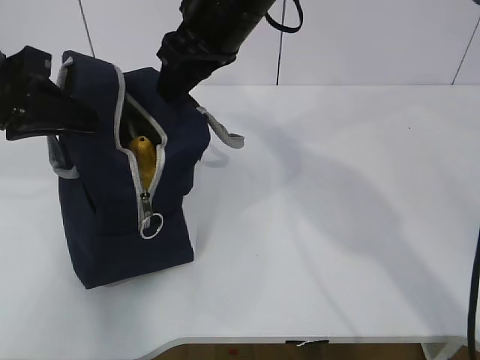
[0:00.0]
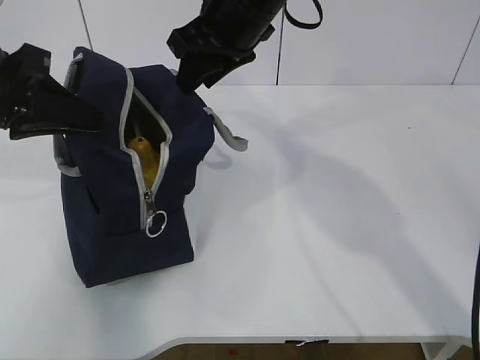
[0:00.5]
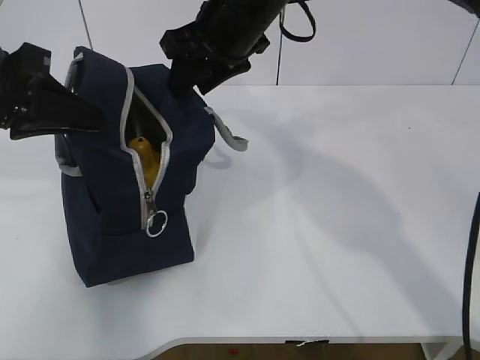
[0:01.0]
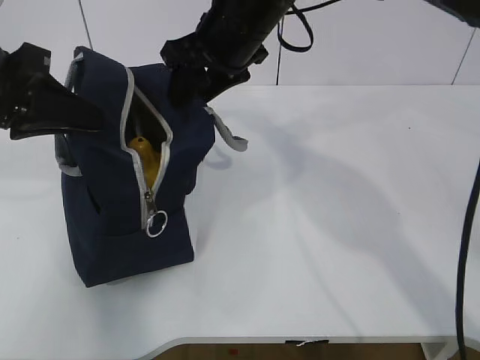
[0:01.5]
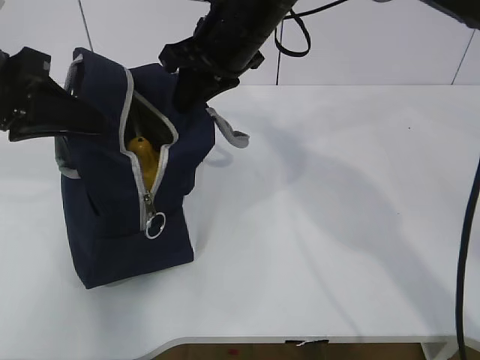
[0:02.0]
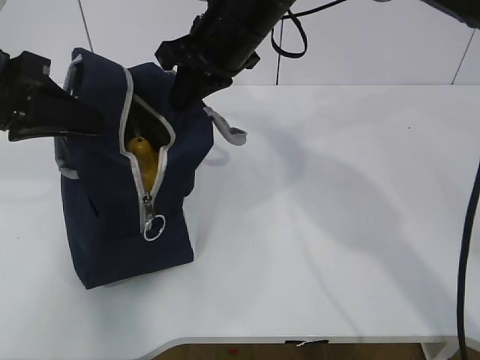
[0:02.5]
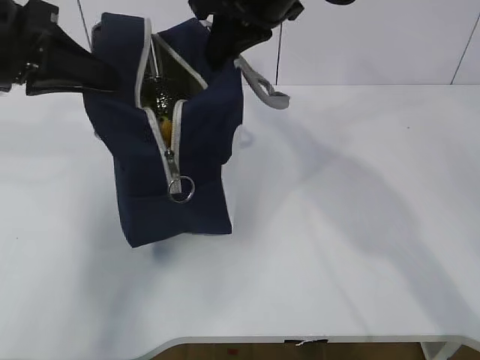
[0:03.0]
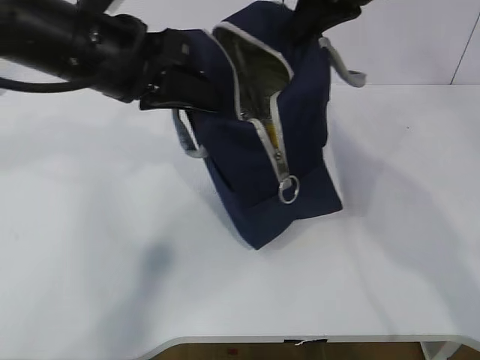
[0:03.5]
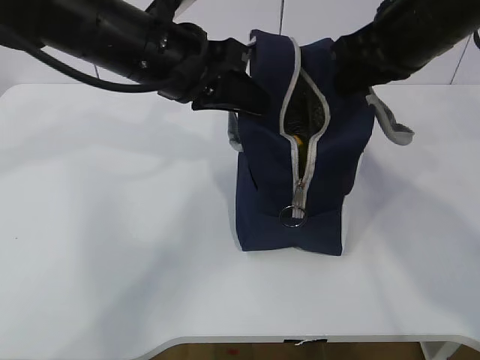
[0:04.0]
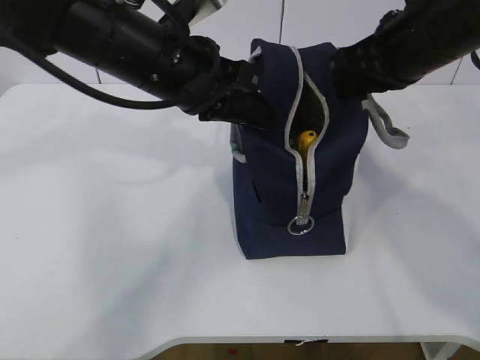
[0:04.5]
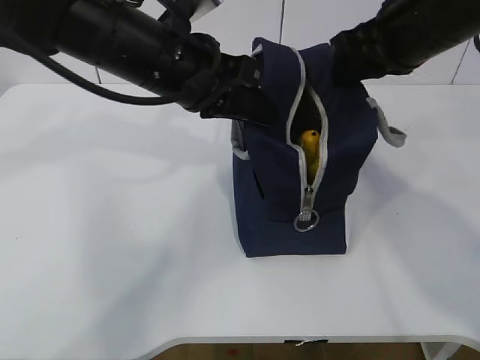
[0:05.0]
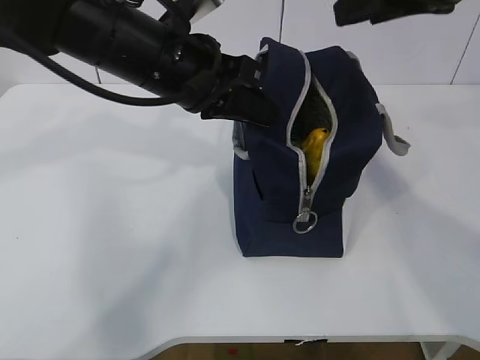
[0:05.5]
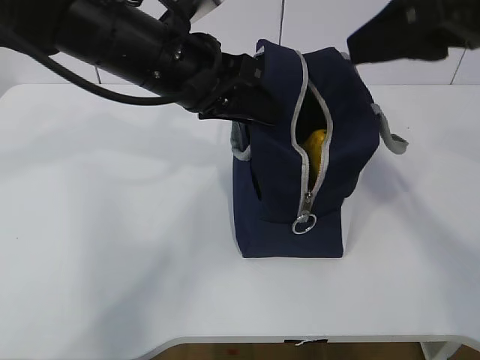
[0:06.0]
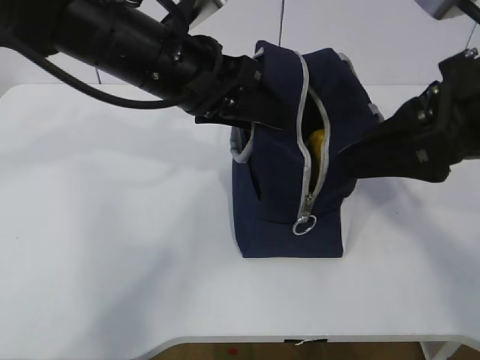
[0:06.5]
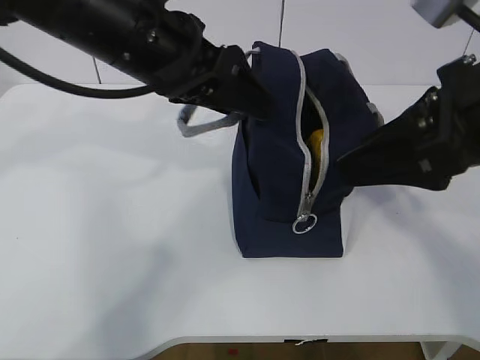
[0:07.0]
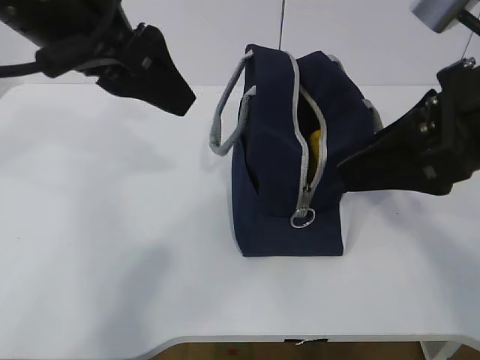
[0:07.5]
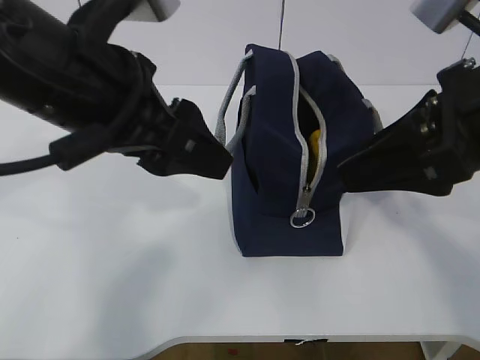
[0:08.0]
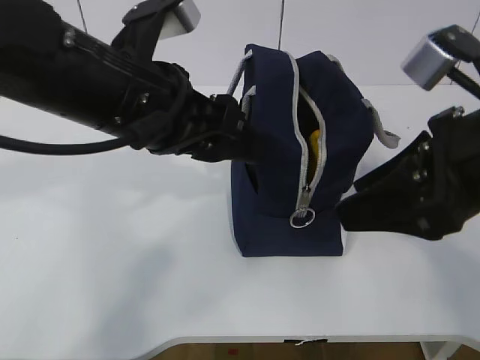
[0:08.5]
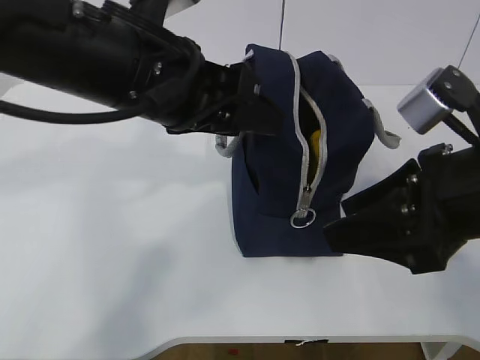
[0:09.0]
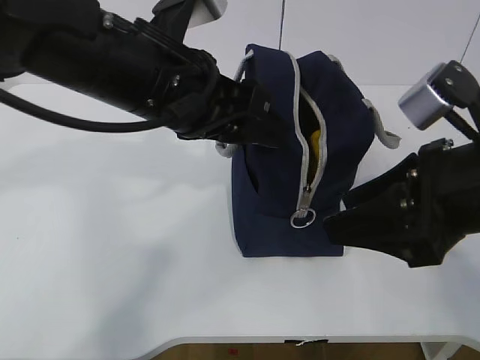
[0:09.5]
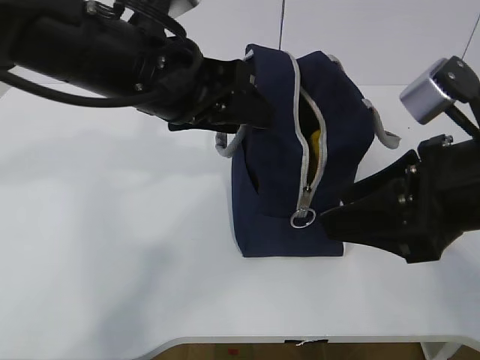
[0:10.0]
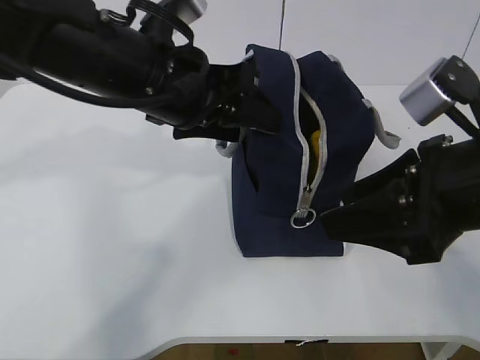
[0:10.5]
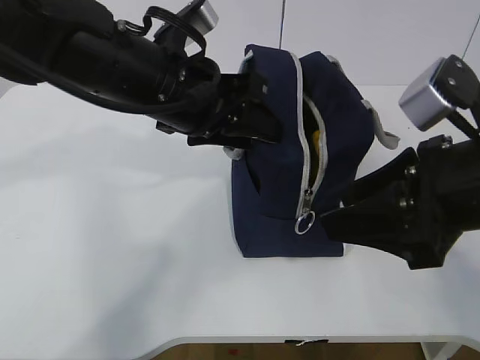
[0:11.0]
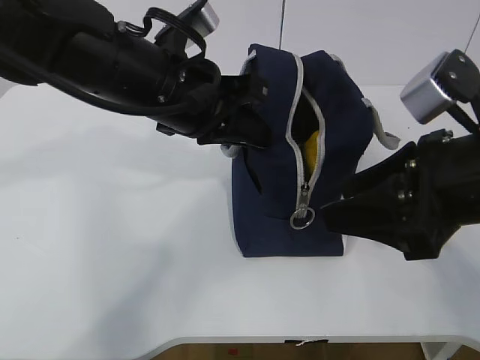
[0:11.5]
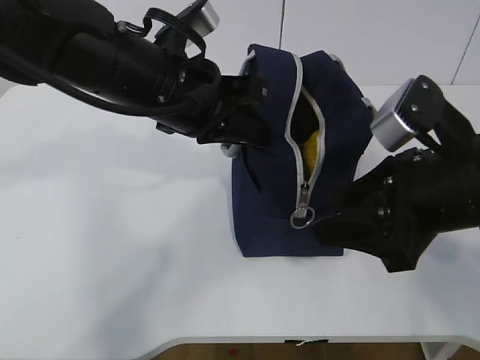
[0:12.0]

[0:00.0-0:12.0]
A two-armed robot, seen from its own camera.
0:02.0 to 0:04.0: The right gripper heads to the right and backward, covering roughly 15 cm, while the left gripper goes some 15 cm to the right.
0:04.0 to 0:06.0: The right gripper is displaced backward and upward by roughly 10 cm, and opens its fingers.
0:06.0 to 0:08.0: The left gripper is displaced backward by approximately 10 cm, and opens up. The right gripper travels downward by approximately 5 cm.
0:08.0 to 0:10.0: The left gripper is displaced forward by roughly 5 cm, while the right gripper shifts about 5 cm downward.
0:10.0 to 0:12.0: The left gripper closes up.

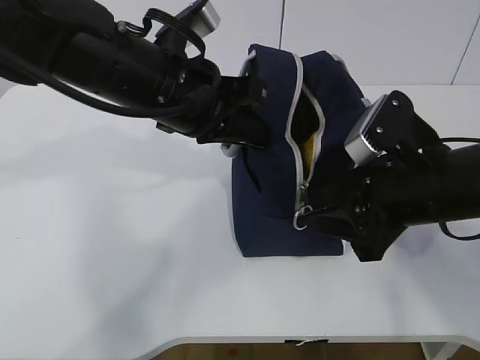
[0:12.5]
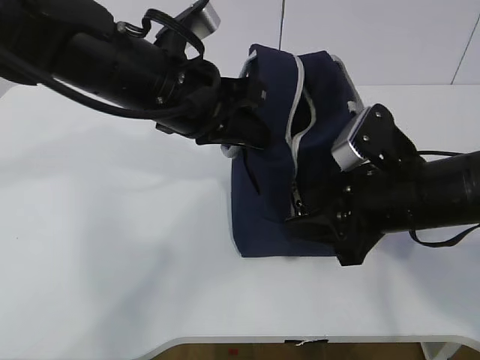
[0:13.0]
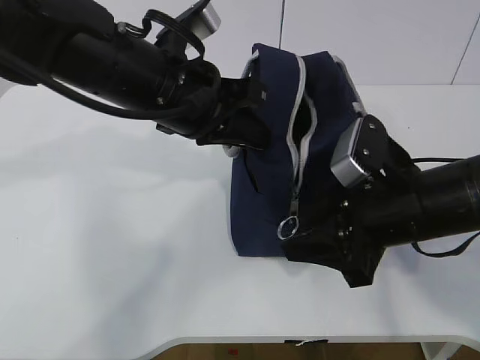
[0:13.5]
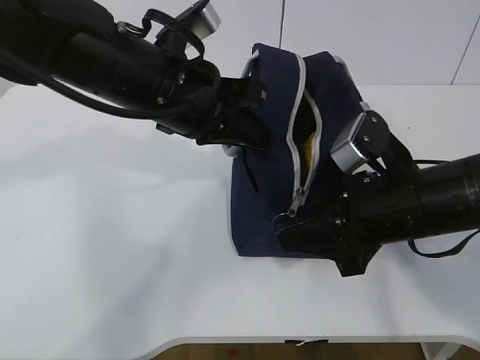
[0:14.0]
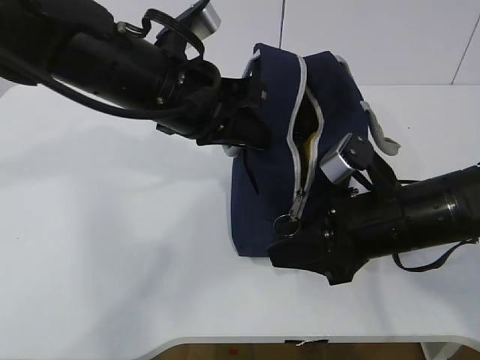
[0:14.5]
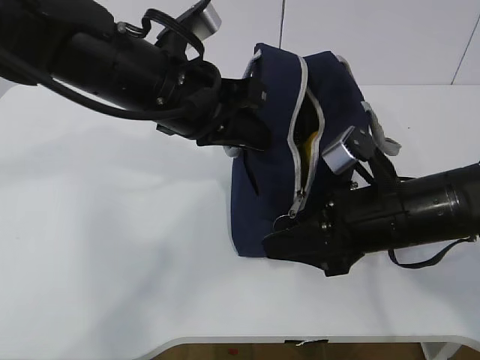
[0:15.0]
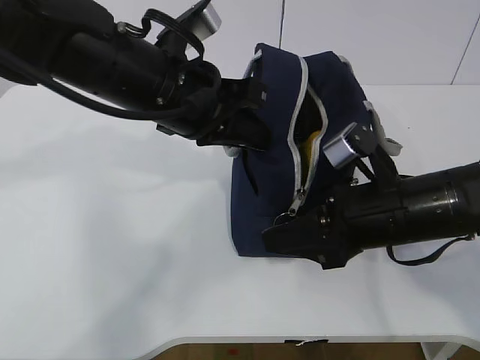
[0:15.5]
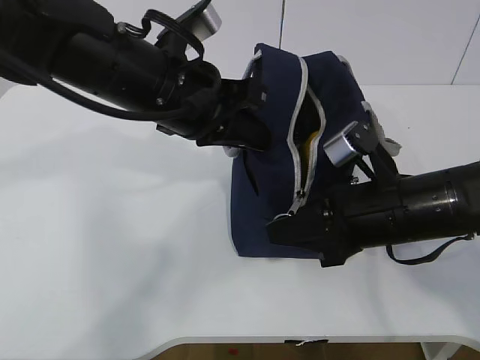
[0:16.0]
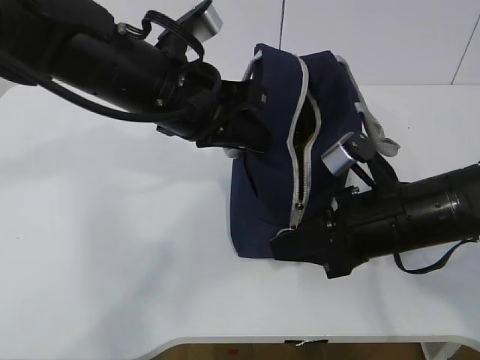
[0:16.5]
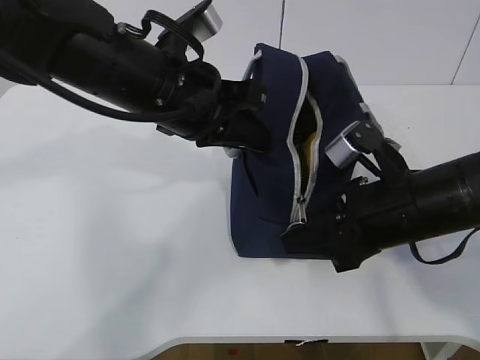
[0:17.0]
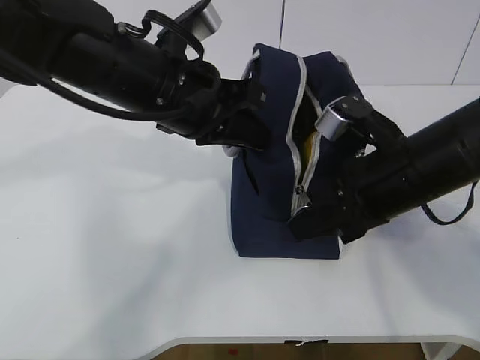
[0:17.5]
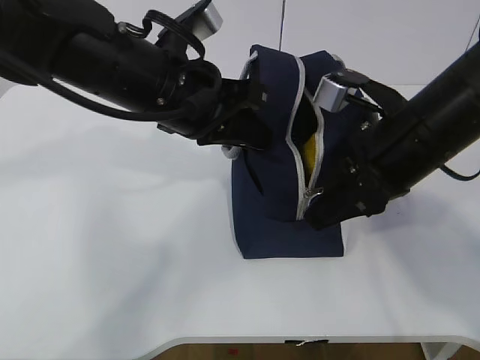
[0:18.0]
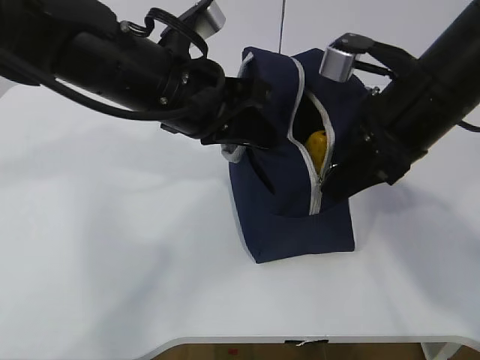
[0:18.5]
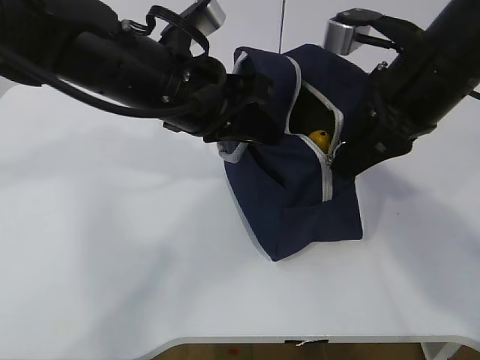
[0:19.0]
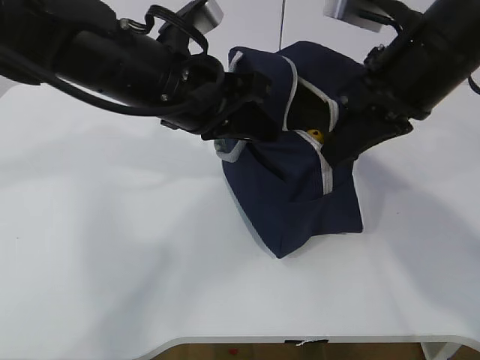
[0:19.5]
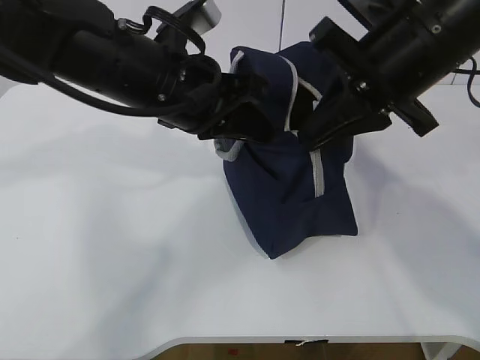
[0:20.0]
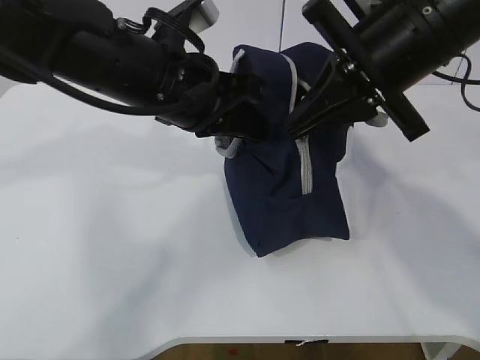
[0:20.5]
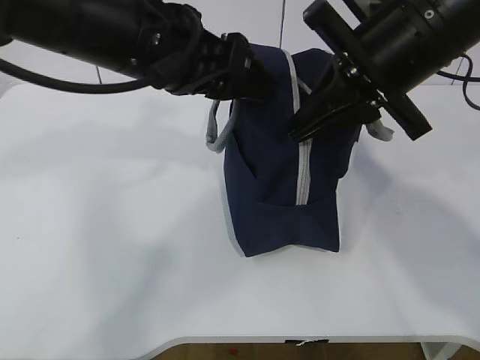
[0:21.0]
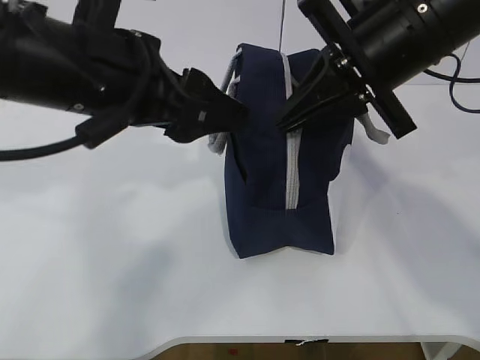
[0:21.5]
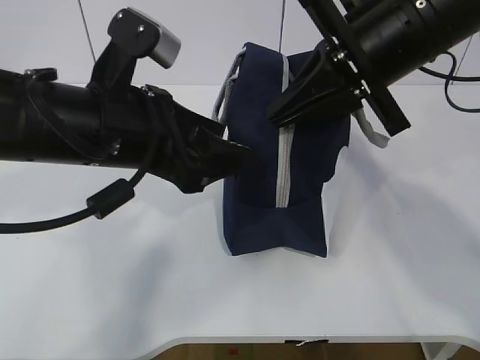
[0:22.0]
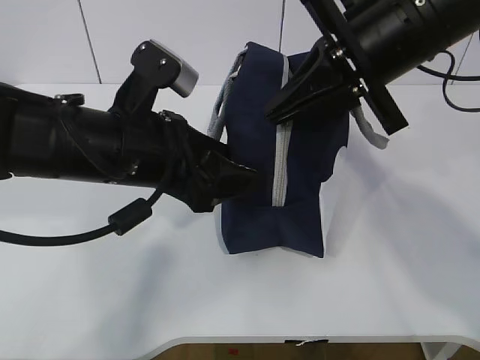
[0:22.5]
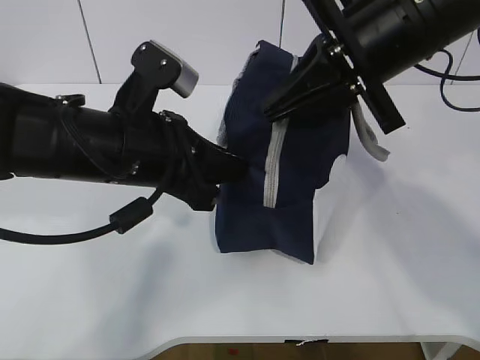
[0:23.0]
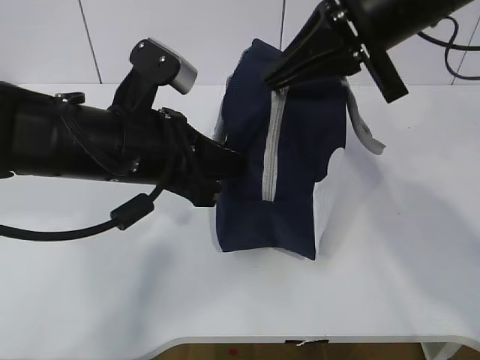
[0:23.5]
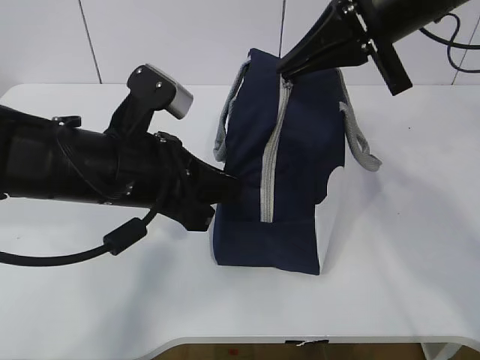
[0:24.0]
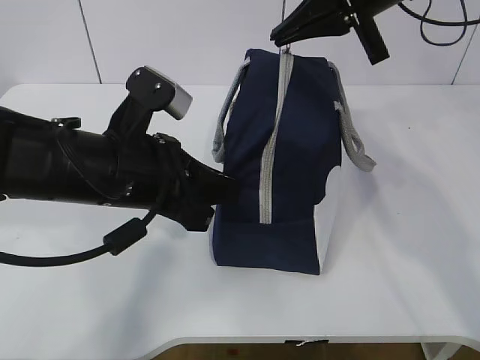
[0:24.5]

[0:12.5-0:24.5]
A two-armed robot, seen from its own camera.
0:12.5 to 0:14.5: The right gripper ends up some 5 cm from where it was.
0:14.5 to 0:16.5: The right gripper closes its fingers.
0:16.5 to 0:18.5: The right gripper goes about 10 cm upward.
0:18.5 to 0:20.5: The right gripper shifts by approximately 5 cm.
0:20.5 to 0:22.5: The left gripper moves roughly 5 cm, and opens.
0:22.5 to 0:24.5: The right gripper goes roughly 10 cm forward; the left gripper closes.

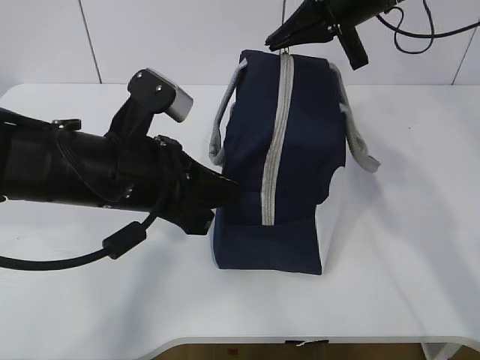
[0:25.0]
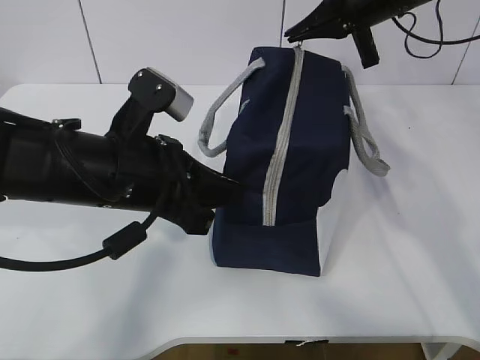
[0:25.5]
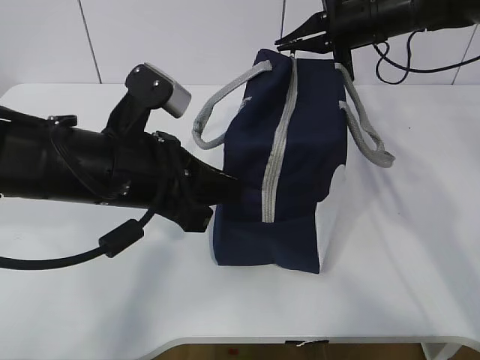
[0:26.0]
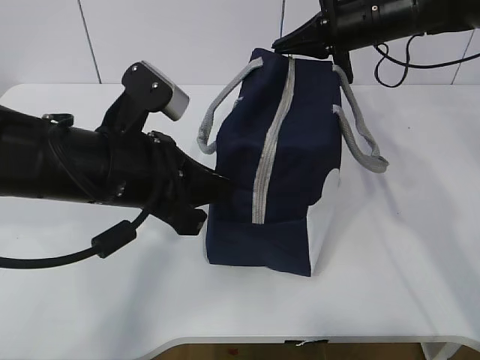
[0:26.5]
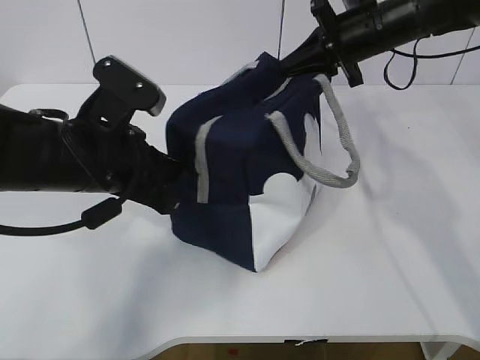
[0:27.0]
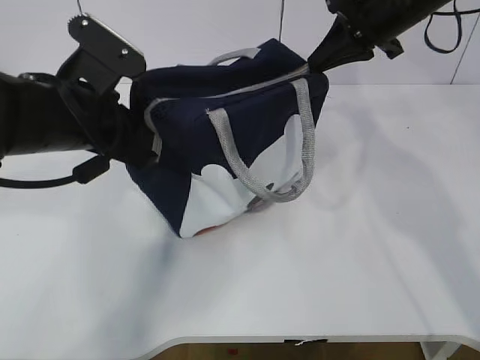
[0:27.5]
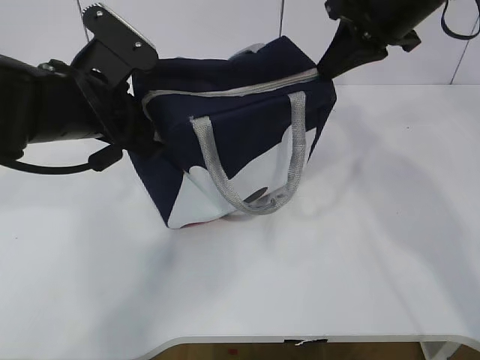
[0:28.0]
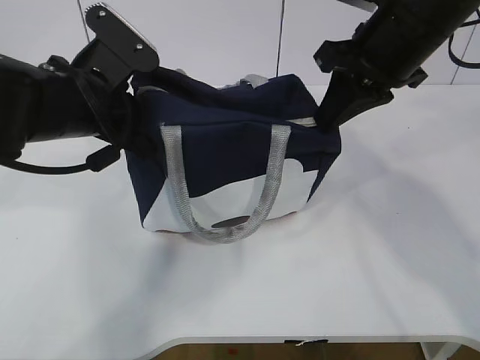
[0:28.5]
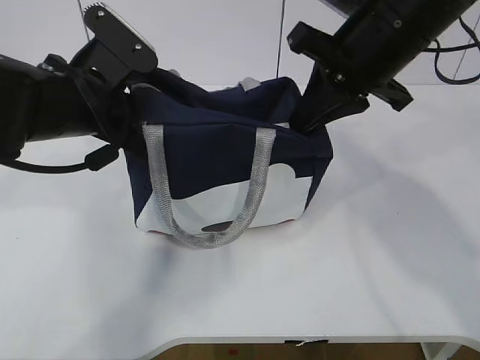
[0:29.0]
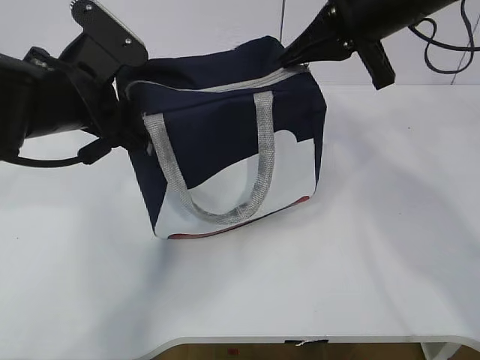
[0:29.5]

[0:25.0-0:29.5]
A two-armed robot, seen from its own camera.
0:25.0 to 0:27.0: The right gripper shifts about 5 cm downward.
0:27.0 to 0:29.5: The right gripper moves backward and upward, some 15 cm, while the left gripper moves roughly 5 cm, and opens up.
